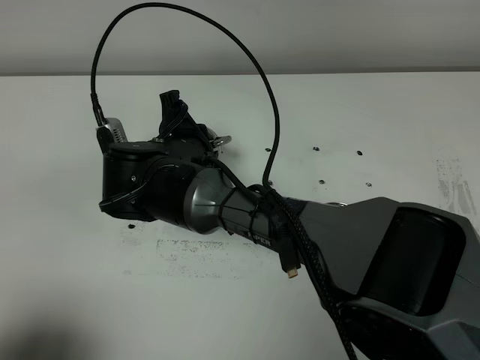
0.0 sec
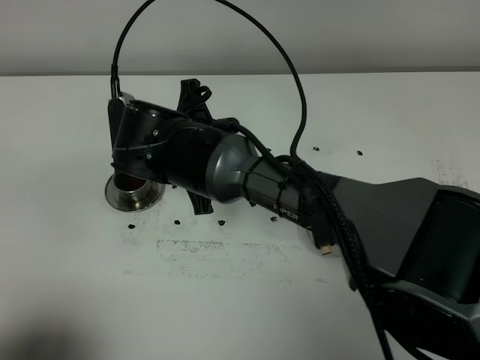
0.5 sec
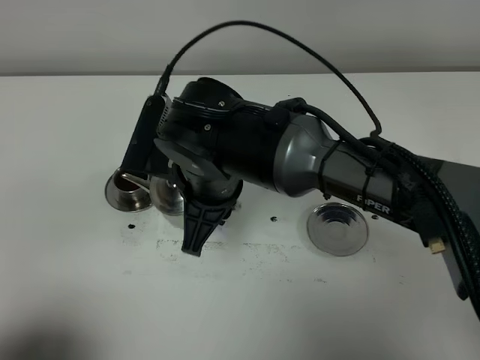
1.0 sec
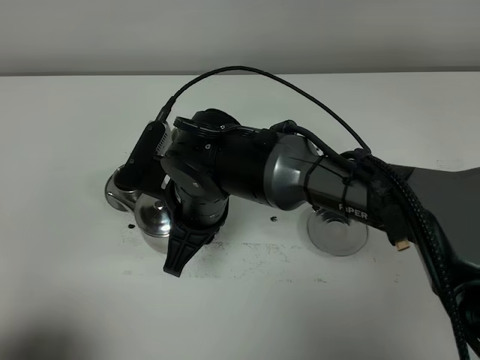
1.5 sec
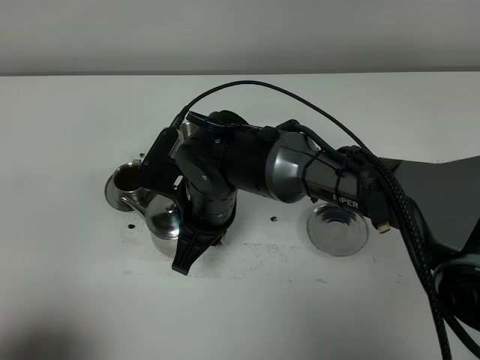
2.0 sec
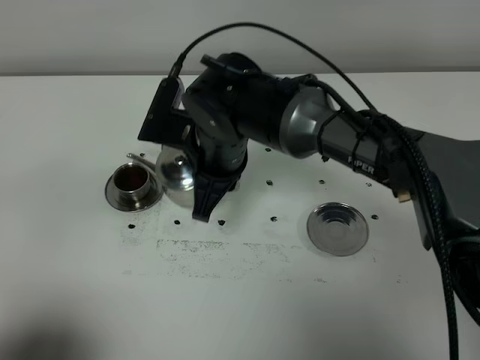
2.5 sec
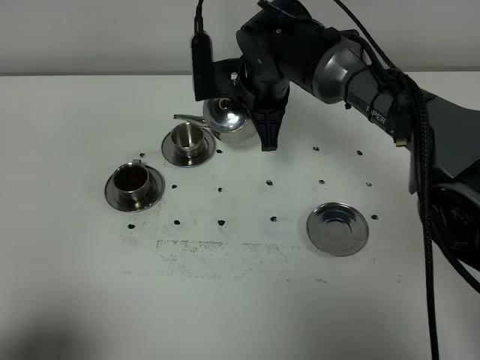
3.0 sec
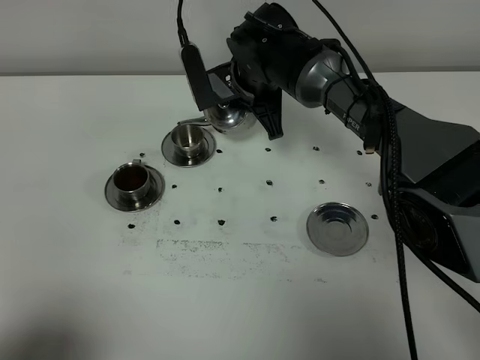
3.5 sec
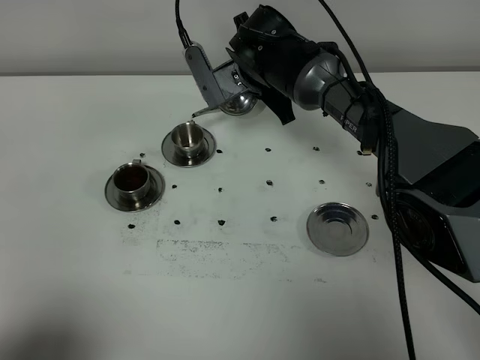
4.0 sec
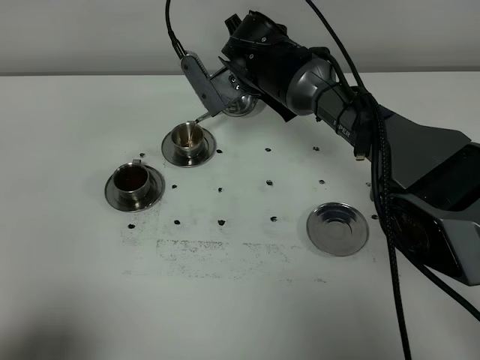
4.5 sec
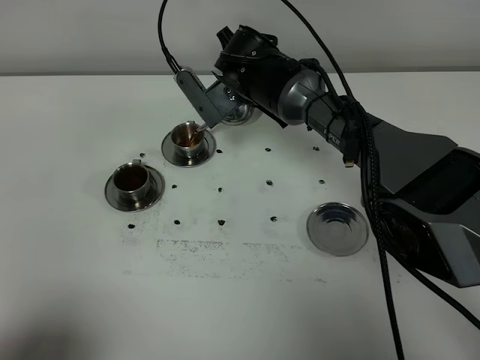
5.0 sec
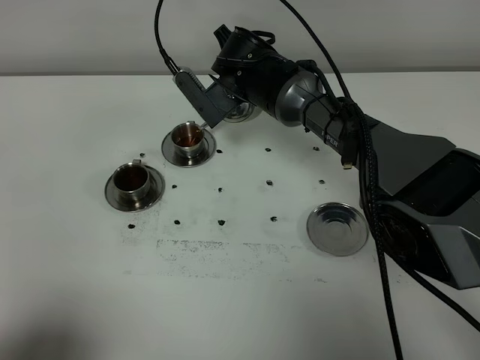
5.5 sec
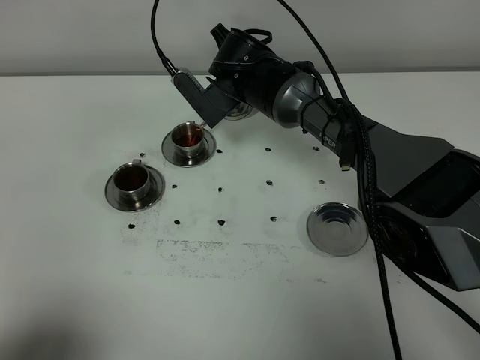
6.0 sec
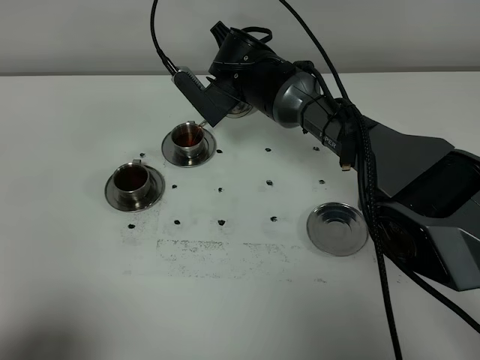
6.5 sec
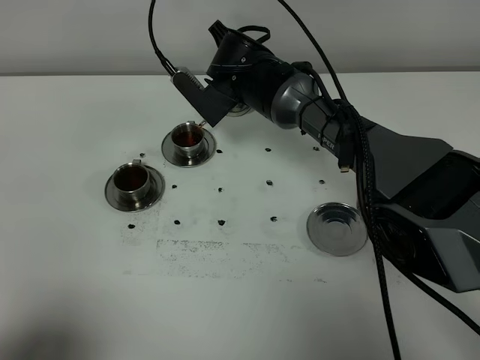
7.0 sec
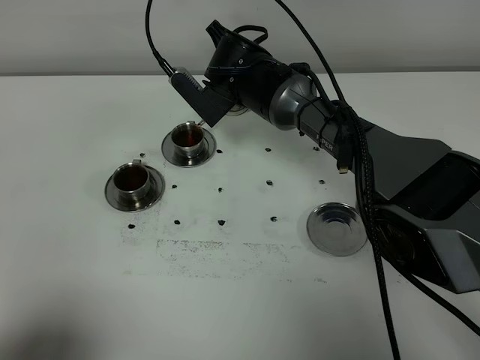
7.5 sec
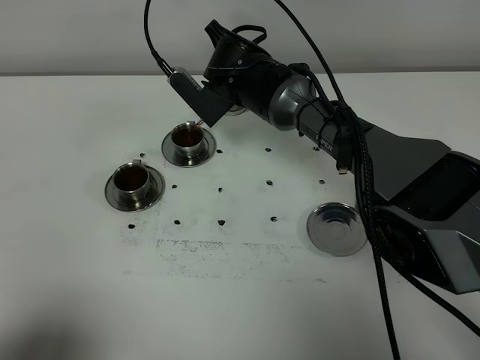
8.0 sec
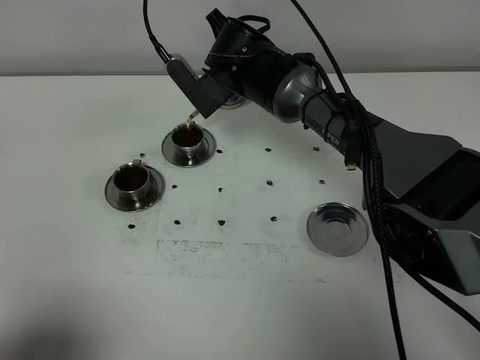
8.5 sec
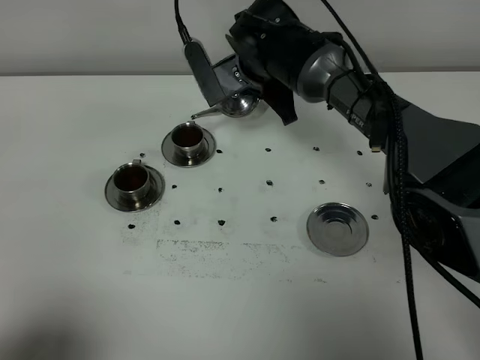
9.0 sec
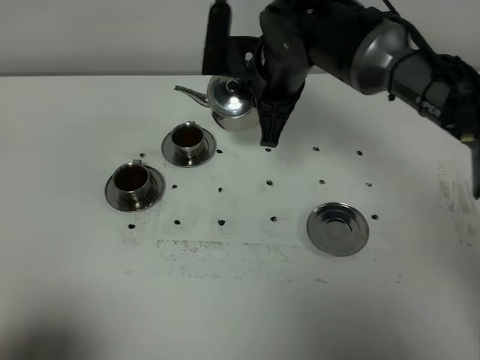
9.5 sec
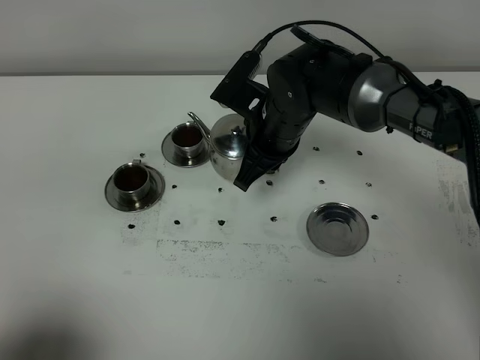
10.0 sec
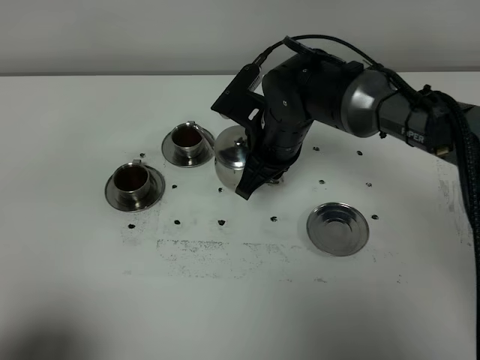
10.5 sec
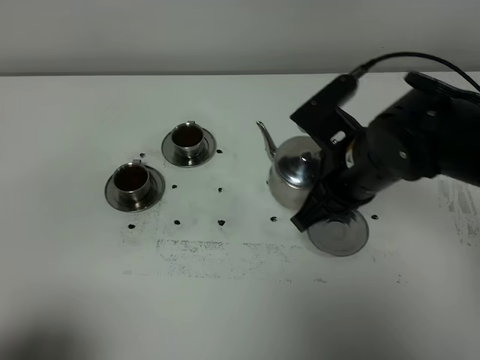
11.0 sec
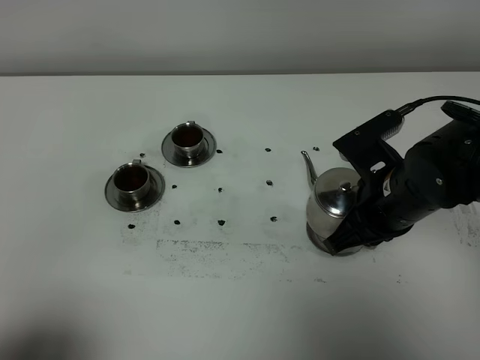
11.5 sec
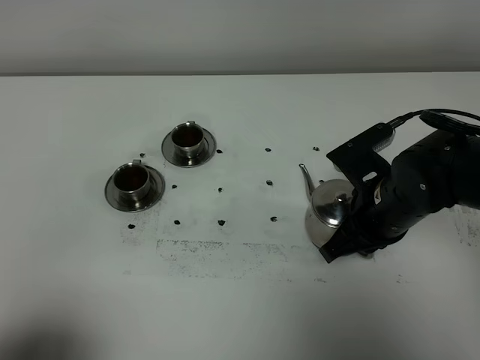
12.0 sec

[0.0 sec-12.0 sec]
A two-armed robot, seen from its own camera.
Task of the whole recording: grasp the stainless steel teapot and pour the tea into the two stainless steel teacups one by one, put the stainless steel teapot back in its original place.
Step, 0.0 sec to 9.0 sec: Pour tea into the teacup with the right gripper.
0.0 sec to 2.0 sec: The right gripper moves roughly 5 cm.
2.0 sec to 4.0 sec: The right gripper goes some 20 cm forward and to the right.
4.0 sec to 6.0 sec: The grippers stay close to where they were, moving slightly.
6.0 sec to 8.0 sec: Neither gripper changes place.
8.0 sec to 10.0 sec: The right gripper travels backward by some 10 cm.
10.0 sec to 12.0 sec: The right gripper is displaced backward and to the right by approximately 15 cm.

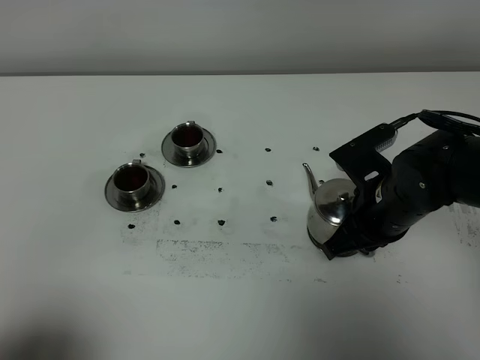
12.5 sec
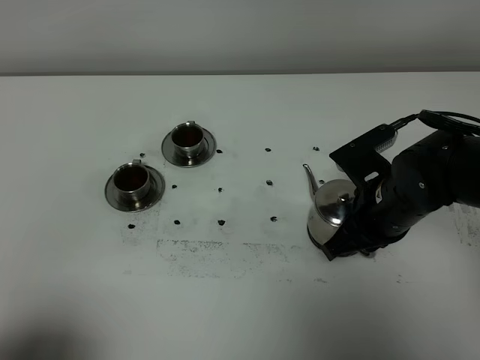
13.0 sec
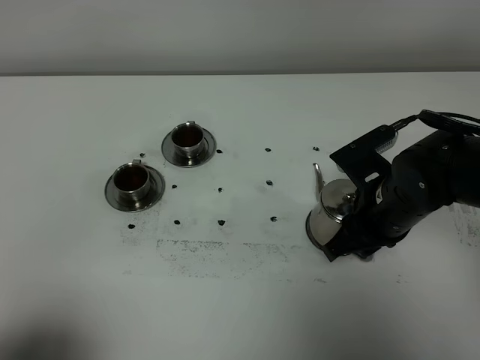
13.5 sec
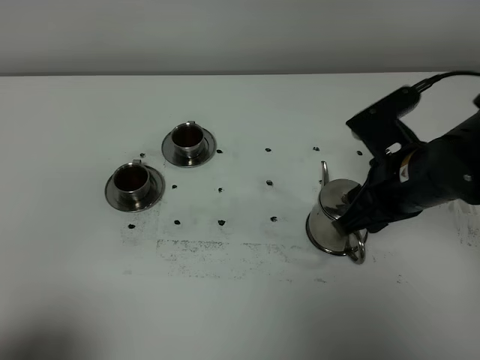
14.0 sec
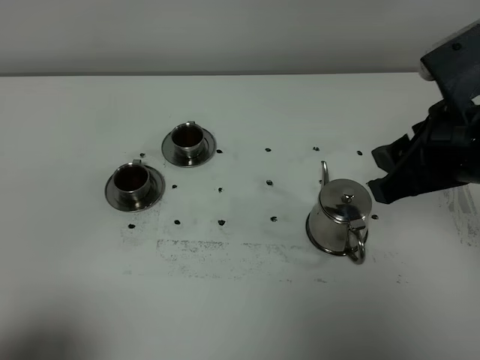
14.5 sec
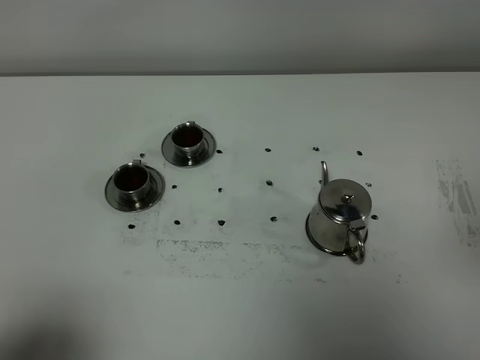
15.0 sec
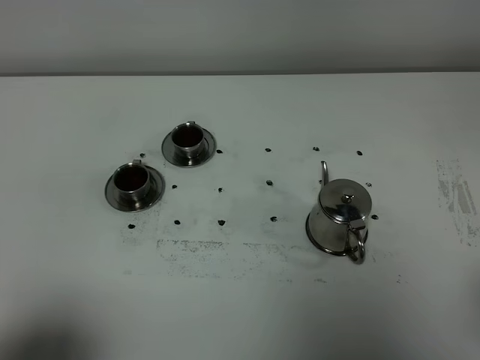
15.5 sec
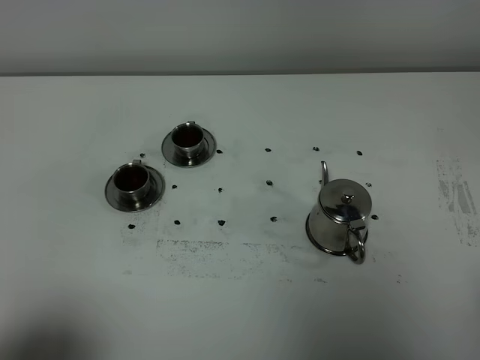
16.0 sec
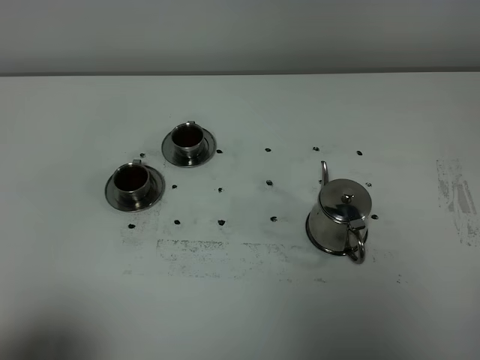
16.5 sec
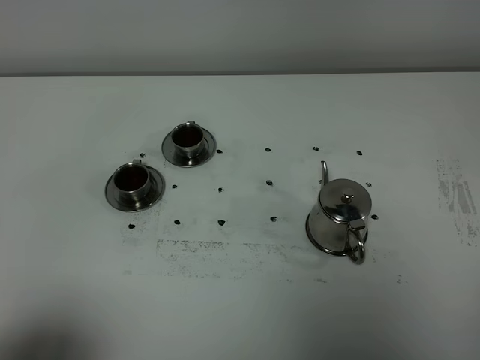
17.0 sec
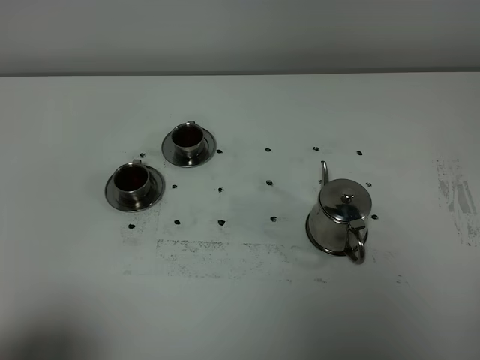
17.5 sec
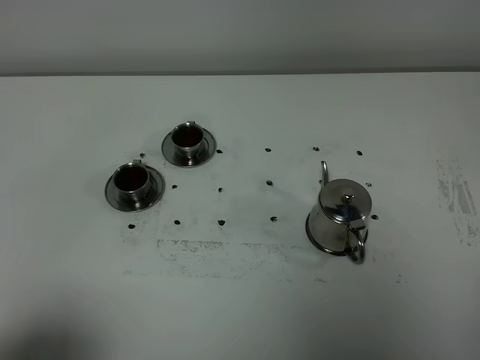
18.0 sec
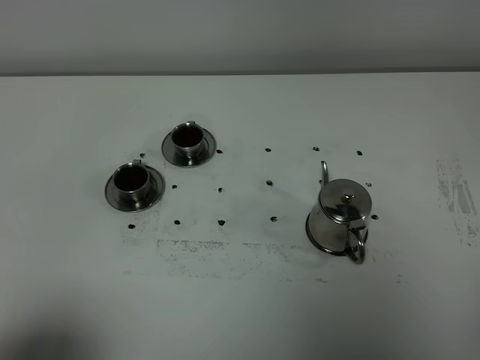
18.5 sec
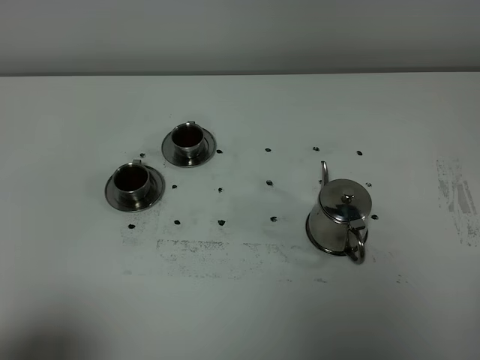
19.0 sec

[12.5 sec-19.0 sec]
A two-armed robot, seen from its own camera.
Task of the whole recording: grasp the stainless steel teapot and pour the tea into the two stainless steel teacups one by one, put the stainless steel teapot back in its original place.
12.5 sec to 14.5 sec: The right gripper moves upward and backward, some 15 cm, and opens.
14.5 sec to 17.0 sec: The right gripper moves backward and to the right, approximately 25 cm.
17.0 sec to 19.0 sec: Neither gripper changes place.
